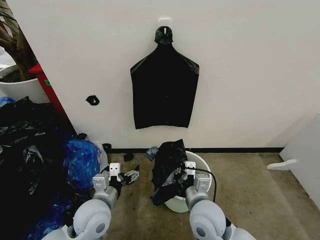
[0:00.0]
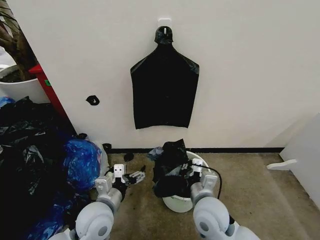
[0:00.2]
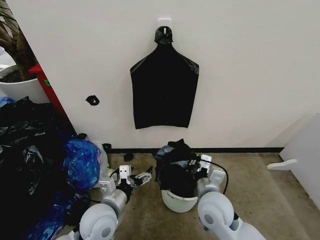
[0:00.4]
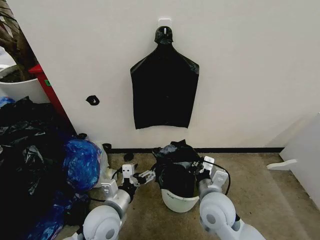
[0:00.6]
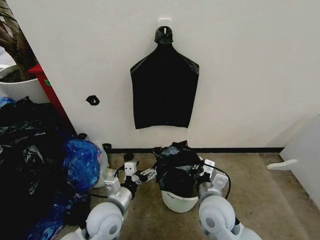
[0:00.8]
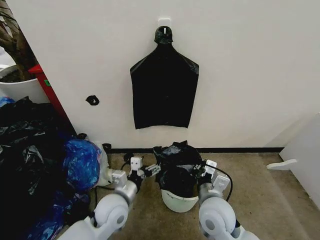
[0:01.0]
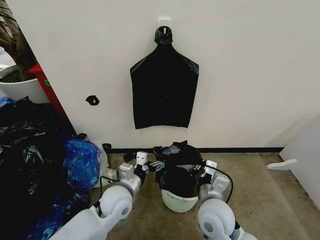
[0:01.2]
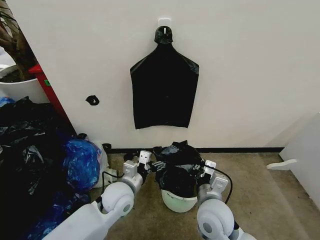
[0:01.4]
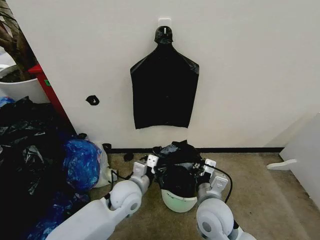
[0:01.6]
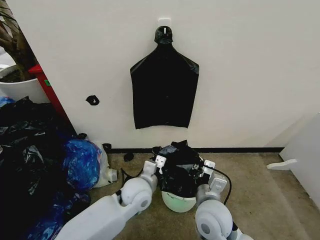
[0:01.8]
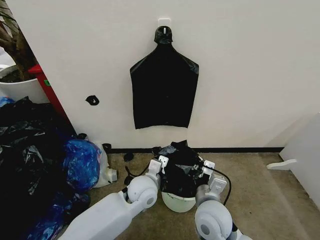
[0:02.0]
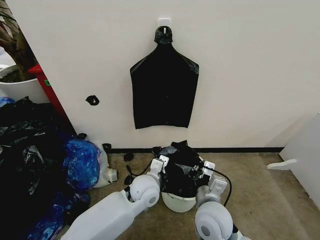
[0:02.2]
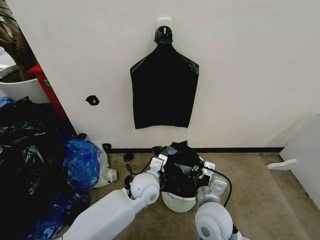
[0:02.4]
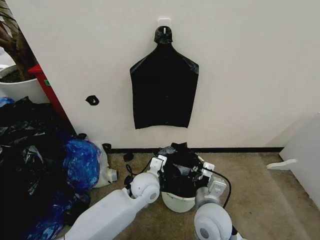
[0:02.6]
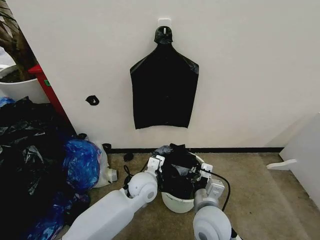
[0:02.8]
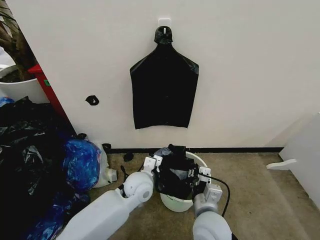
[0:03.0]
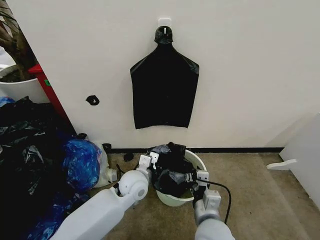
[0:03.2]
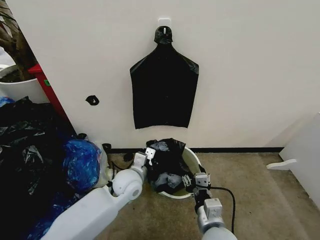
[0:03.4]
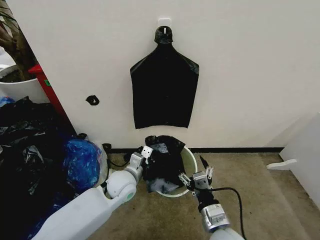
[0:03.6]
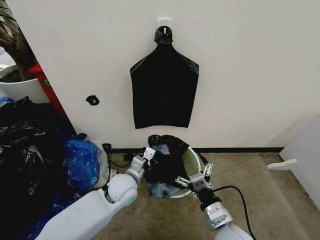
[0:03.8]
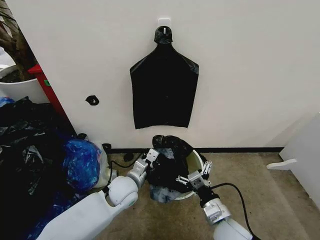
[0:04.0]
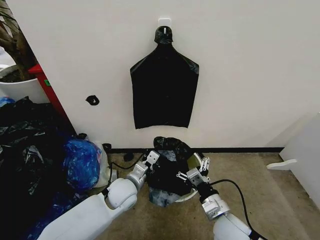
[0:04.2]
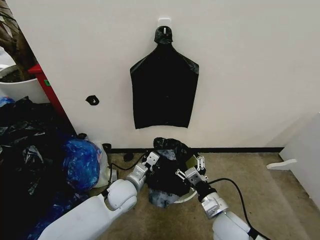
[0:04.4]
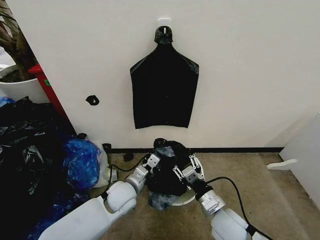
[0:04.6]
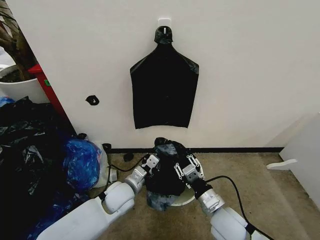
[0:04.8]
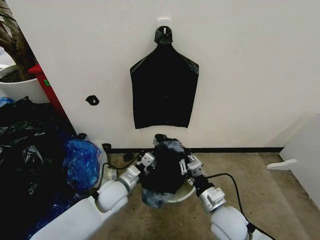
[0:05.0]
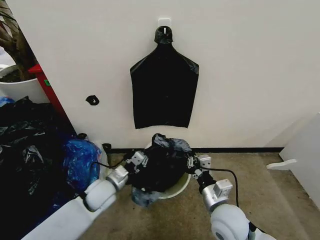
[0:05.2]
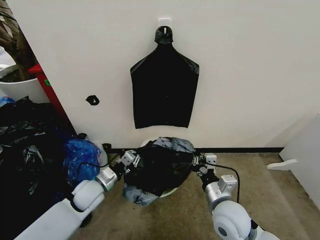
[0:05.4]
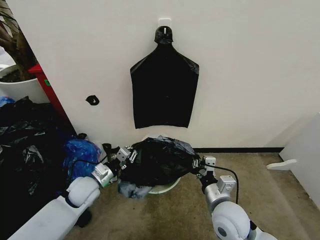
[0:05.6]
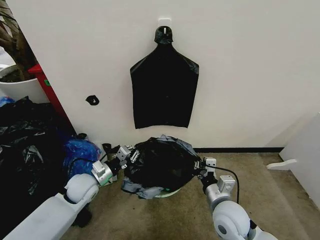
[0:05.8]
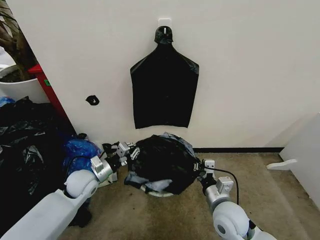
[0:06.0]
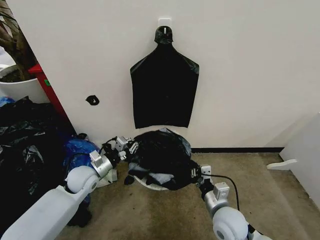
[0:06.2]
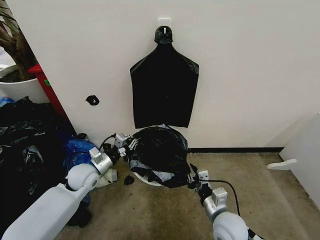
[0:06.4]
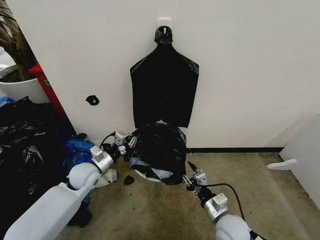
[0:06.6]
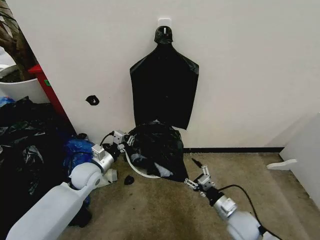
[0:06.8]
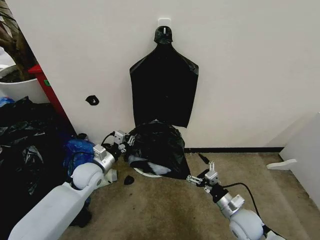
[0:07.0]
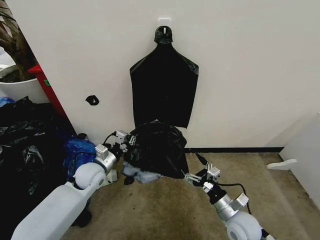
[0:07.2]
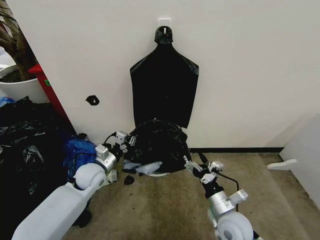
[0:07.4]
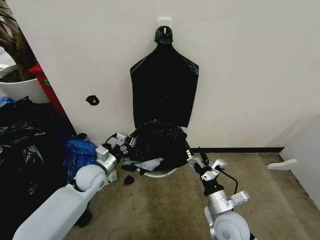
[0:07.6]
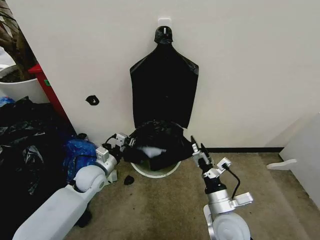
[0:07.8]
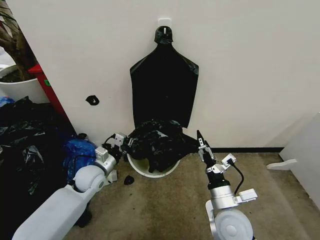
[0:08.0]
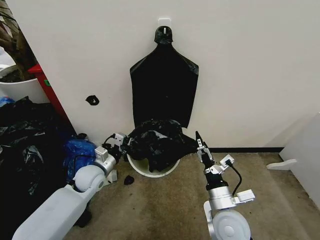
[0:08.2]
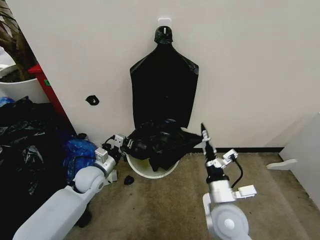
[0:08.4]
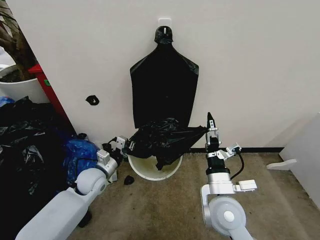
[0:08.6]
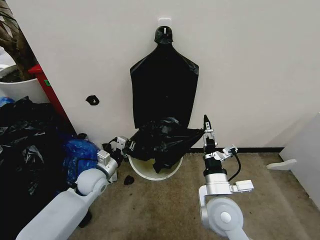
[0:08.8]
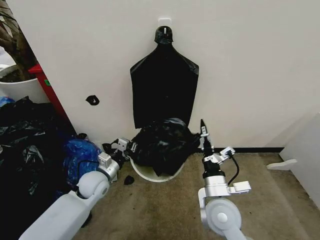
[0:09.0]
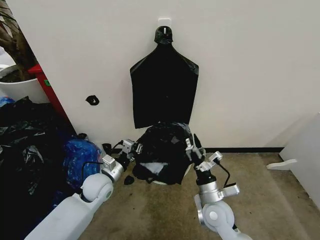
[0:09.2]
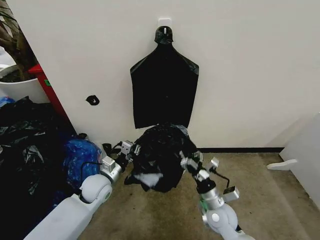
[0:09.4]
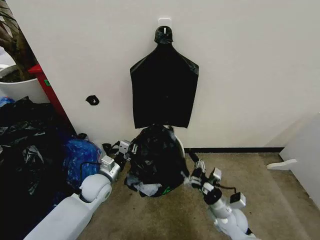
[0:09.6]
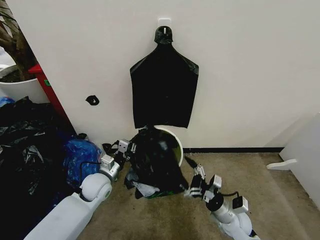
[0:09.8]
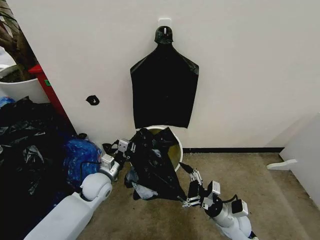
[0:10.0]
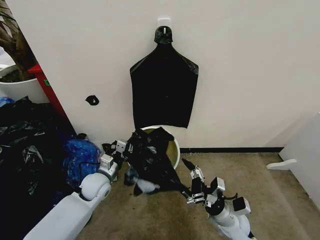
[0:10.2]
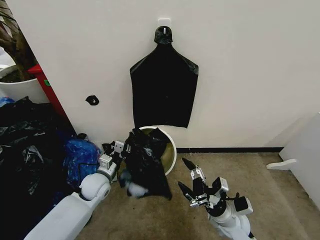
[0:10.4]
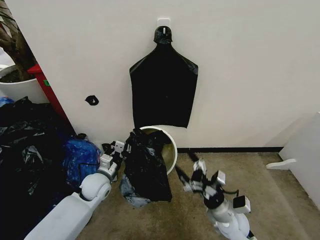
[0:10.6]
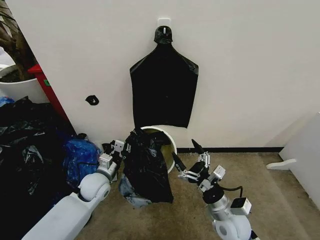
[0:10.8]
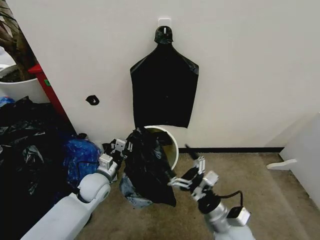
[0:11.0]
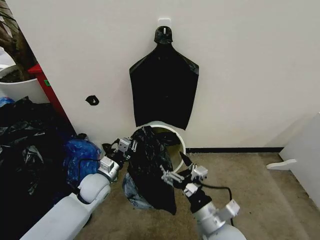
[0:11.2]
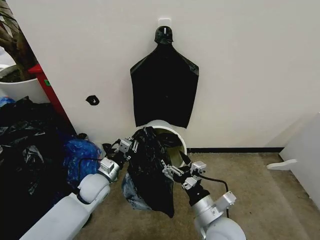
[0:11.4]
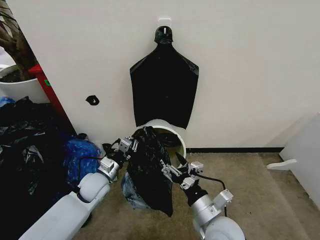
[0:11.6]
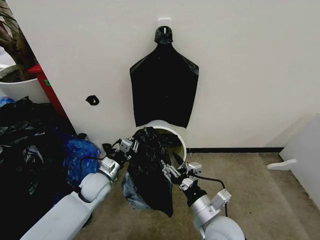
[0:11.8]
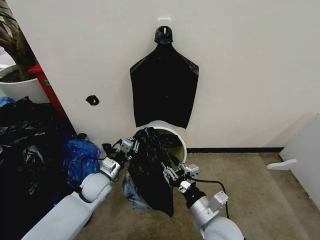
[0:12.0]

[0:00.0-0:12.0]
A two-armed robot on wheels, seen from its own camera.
Task of the whole recording: Place the garbage bag over the trash bin.
0:00.0 to 0:01.6: The left gripper is displaced to the right and forward by some 10 cm.
0:01.6 to 0:03.0: The left gripper shifts by about 5 cm, and closes up.
0:03.0 to 0:04.4: The right gripper heads to the right, covering roughly 5 cm, and opens its fingers. Meanwhile the left gripper is displaced to the left by about 5 cm.
0:04.4 to 0:06.0: The left gripper travels to the left by roughly 15 cm, while the right gripper closes its fingers.
0:06.0 to 0:07.6: The right gripper reaches roughly 10 cm downward, then returns, and opens up.
0:07.6 to 0:09.0: The right gripper heads upward, covering about 5 cm.
0:09.0 to 0:10.4: The right gripper travels downward and to the right by about 15 cm.
0:10.4 to 0:12.0: The right gripper heads upward, to the left and backward, covering some 15 cm, and closes up.

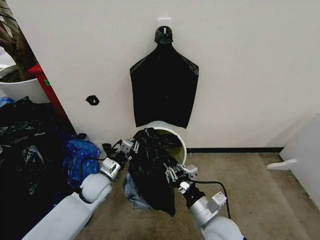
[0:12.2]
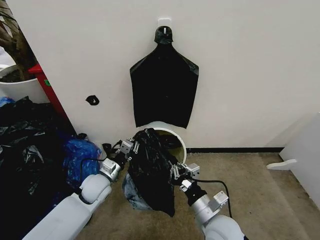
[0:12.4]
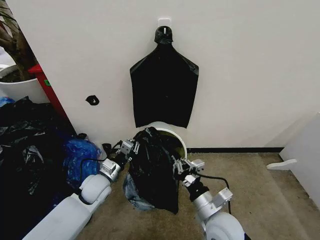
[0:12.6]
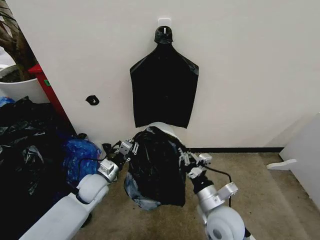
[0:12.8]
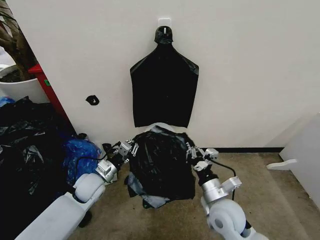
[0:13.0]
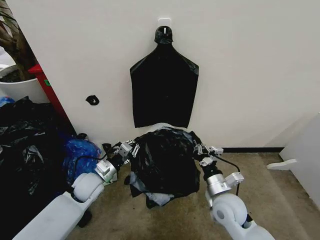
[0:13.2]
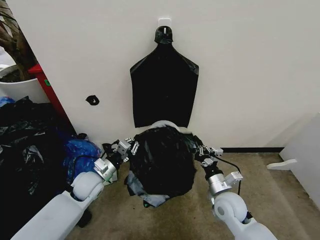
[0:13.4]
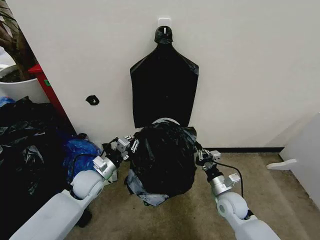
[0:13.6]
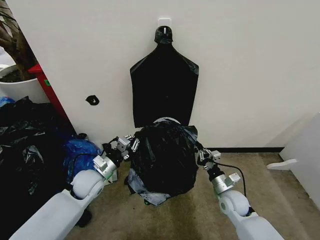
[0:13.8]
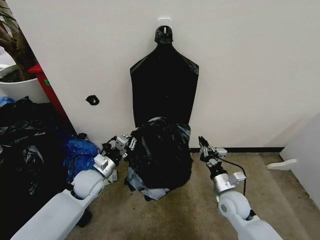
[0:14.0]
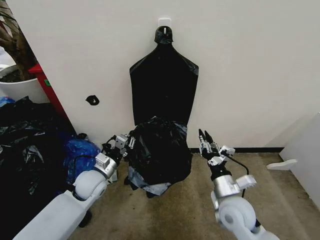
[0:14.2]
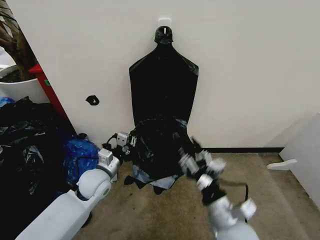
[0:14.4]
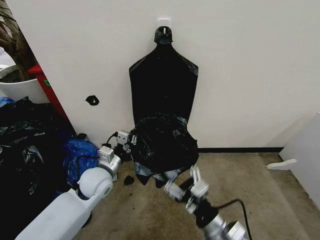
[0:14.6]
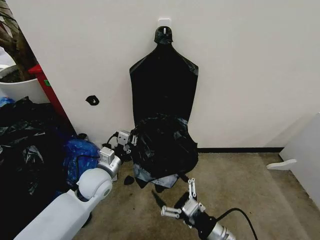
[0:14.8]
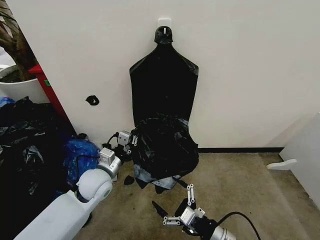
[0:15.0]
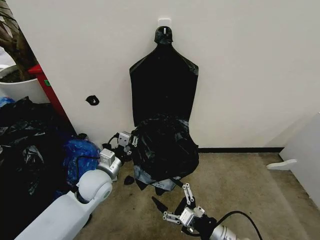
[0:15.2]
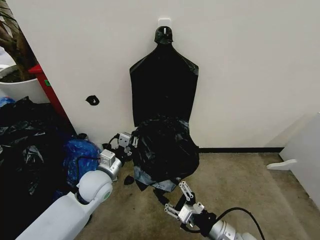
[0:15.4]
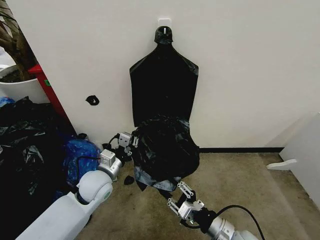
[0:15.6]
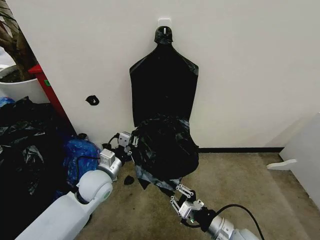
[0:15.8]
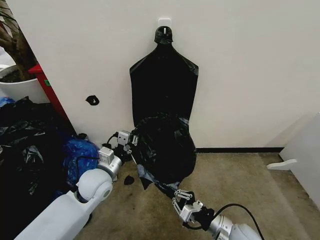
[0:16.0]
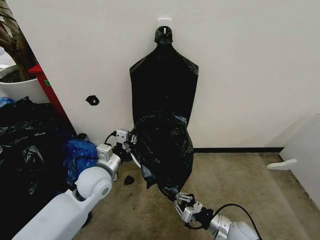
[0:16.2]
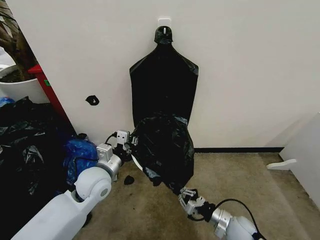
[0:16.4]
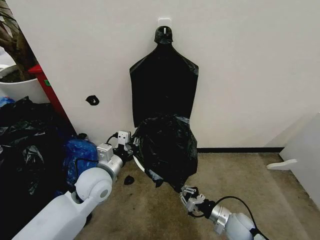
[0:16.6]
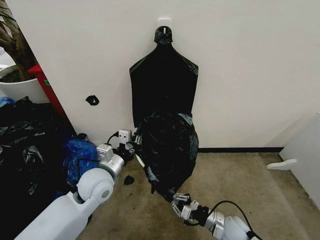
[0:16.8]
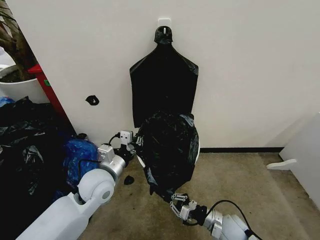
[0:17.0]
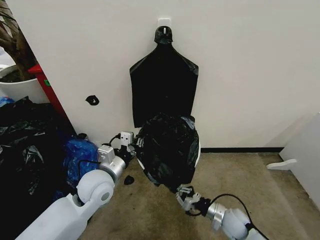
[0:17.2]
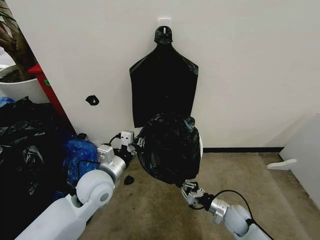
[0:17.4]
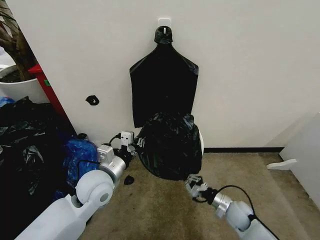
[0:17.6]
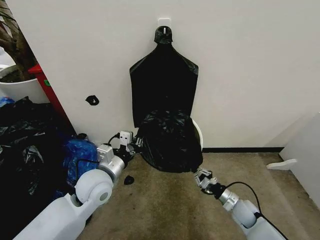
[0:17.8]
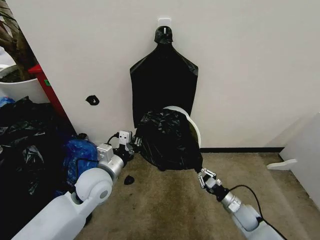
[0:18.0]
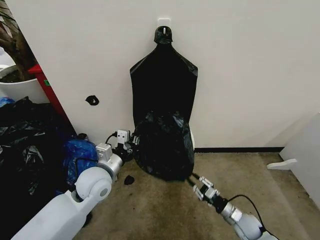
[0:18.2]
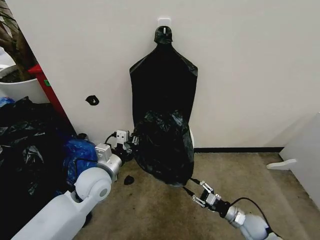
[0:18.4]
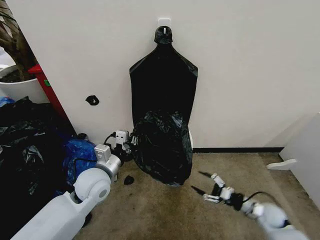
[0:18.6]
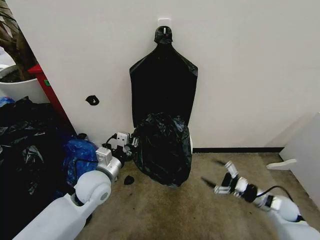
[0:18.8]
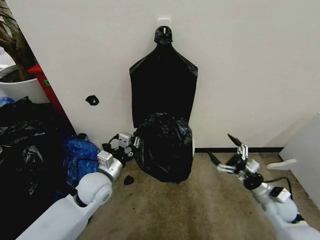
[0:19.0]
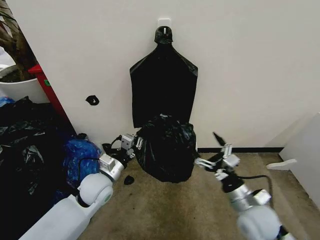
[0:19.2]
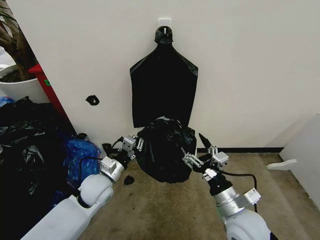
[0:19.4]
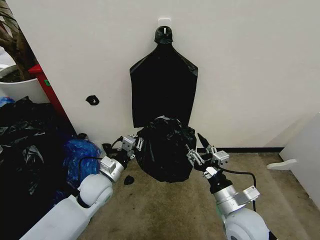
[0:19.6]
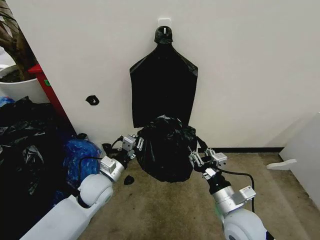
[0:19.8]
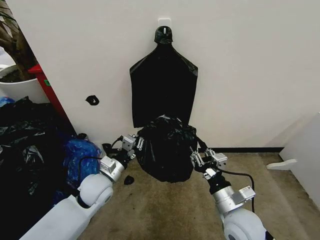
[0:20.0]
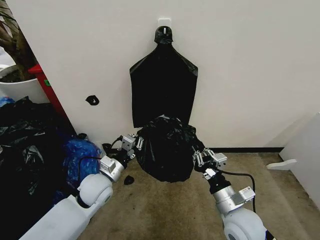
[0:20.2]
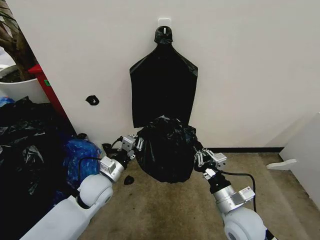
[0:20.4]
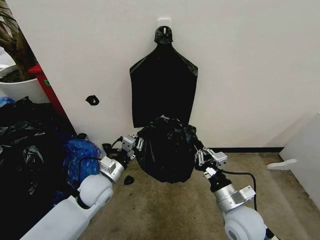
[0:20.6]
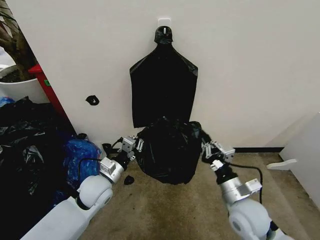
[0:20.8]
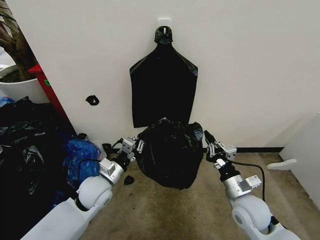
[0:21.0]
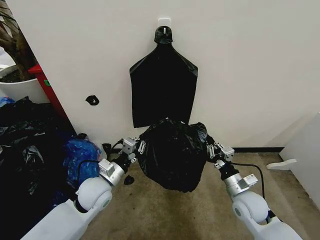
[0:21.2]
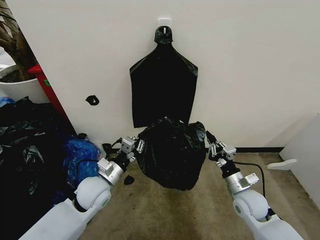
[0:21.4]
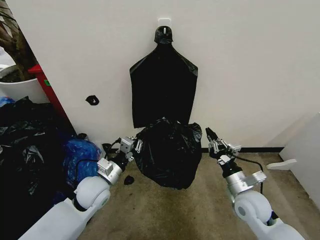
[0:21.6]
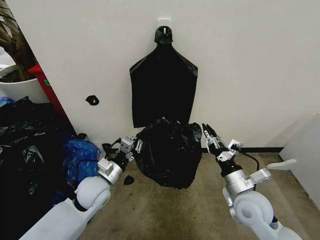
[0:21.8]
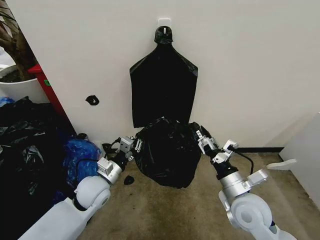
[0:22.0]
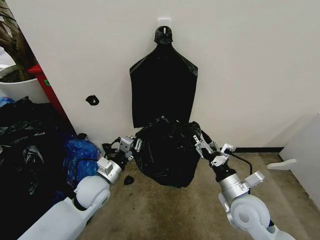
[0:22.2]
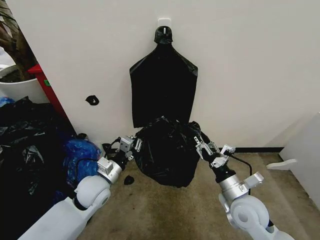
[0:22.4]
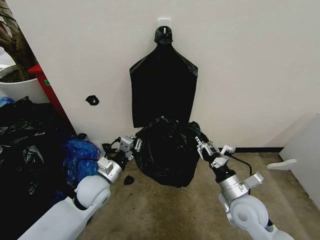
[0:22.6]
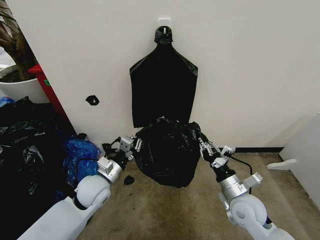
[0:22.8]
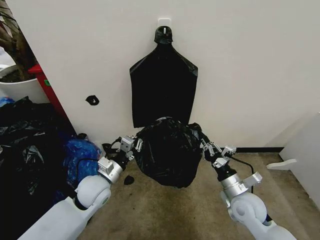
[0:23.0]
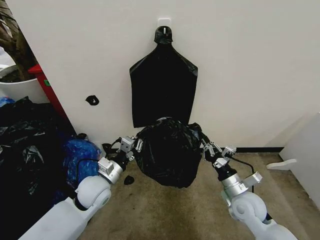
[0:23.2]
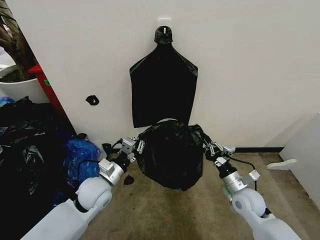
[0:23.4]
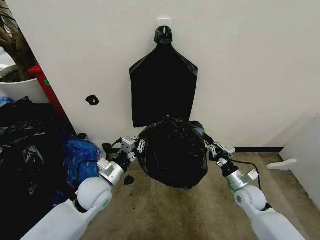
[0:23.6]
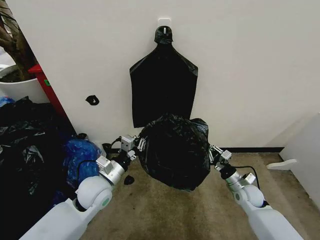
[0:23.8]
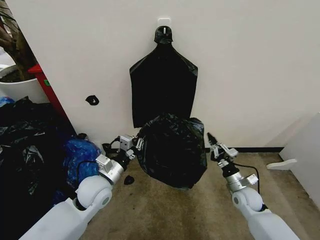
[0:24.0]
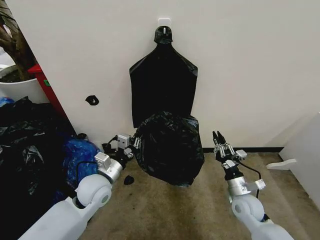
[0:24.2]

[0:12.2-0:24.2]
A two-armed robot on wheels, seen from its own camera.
Task of the whole recording: Place the garbage bag over the trash bin.
0:12.2 to 0:13.8: The right gripper heads forward, to the right and downward, covering approximately 20 cm.
0:13.8 to 0:15.2: The left gripper moves roughly 5 cm, while the right gripper travels backward and upward by some 20 cm, and opens its fingers.
0:15.2 to 0:16.6: The right gripper travels downward, forward and to the right by some 15 cm, and closes its fingers.
0:16.6 to 0:18.2: The right gripper goes some 10 cm to the right and downward.
0:18.2 to 0:19.8: The right gripper travels upward and to the left by roughly 25 cm, and opens, then closes once more, while the left gripper goes some 5 cm downward.
0:19.8 to 0:21.2: The right gripper shifts some 10 cm to the right, forward and downward, and closes up.
0:21.2 to 0:22.6: The right gripper opens and closes again.
0:22.6 to 0:24.2: The right gripper shifts about 10 cm downward.
